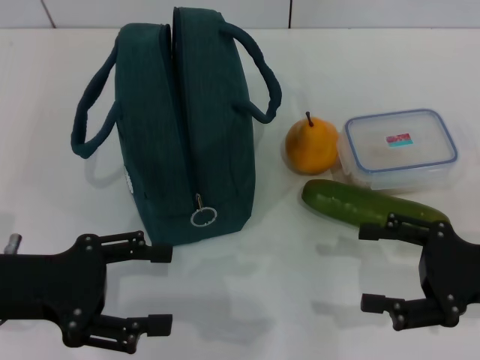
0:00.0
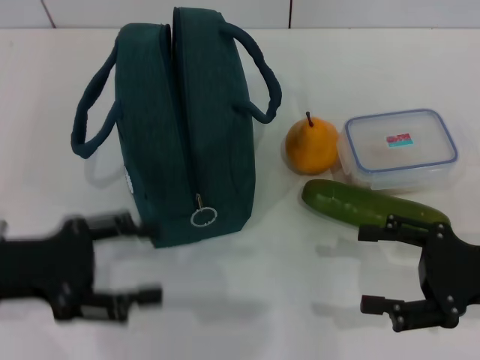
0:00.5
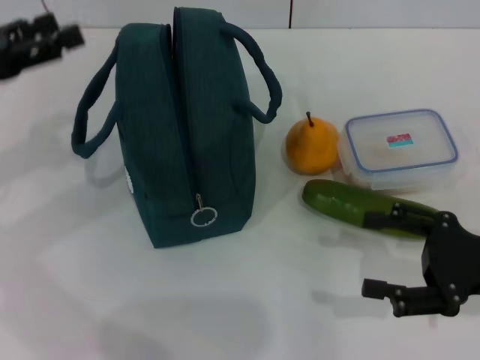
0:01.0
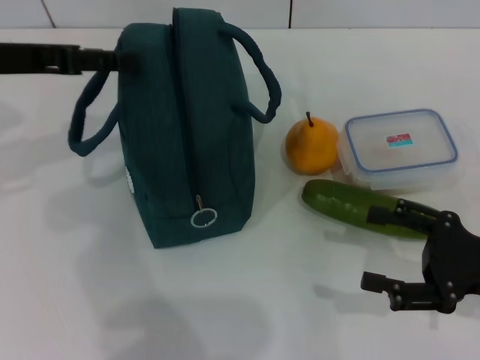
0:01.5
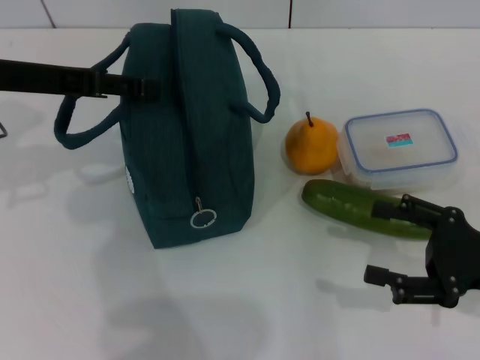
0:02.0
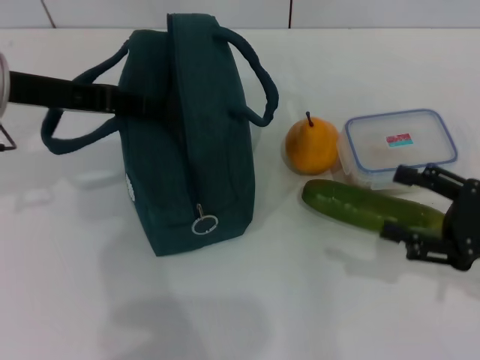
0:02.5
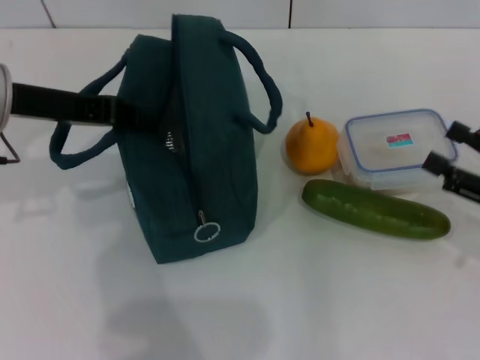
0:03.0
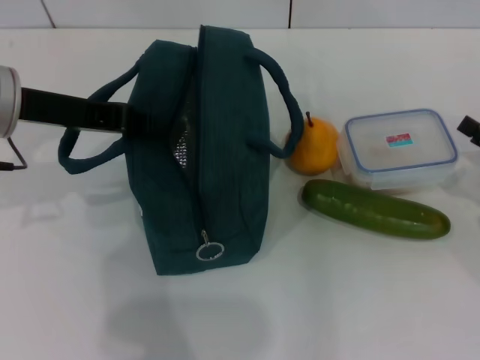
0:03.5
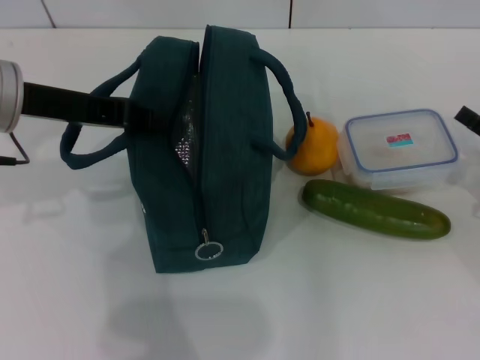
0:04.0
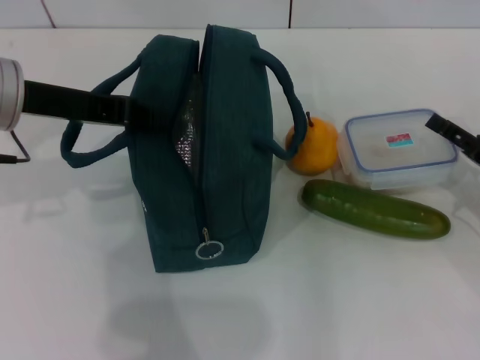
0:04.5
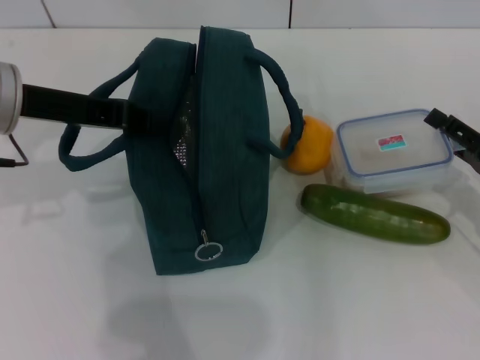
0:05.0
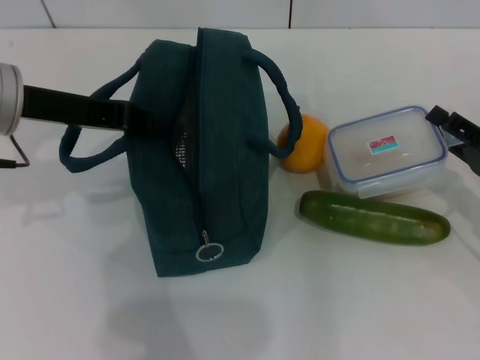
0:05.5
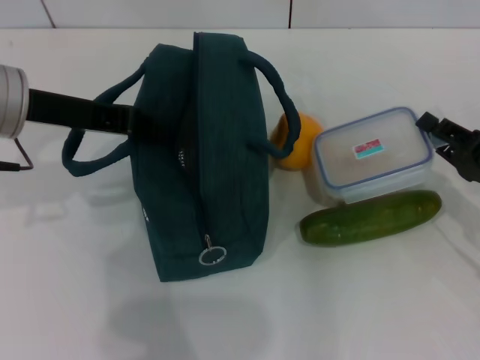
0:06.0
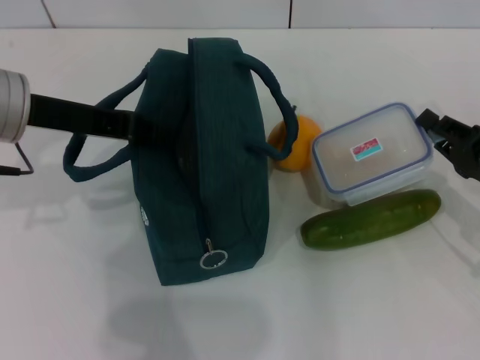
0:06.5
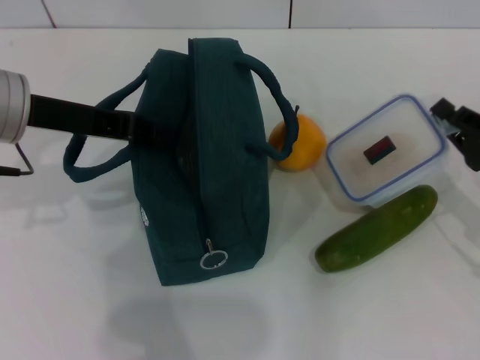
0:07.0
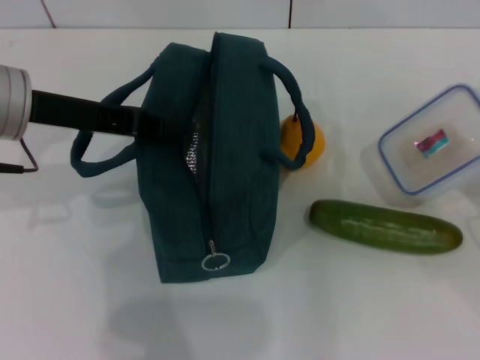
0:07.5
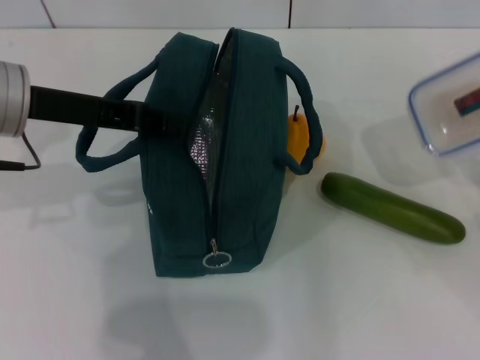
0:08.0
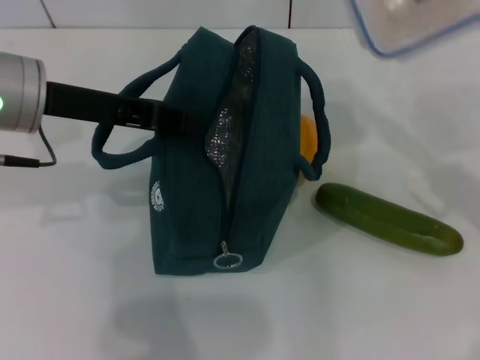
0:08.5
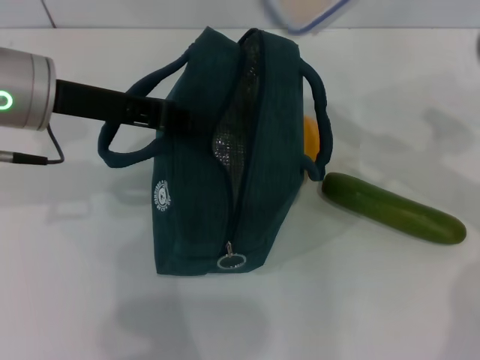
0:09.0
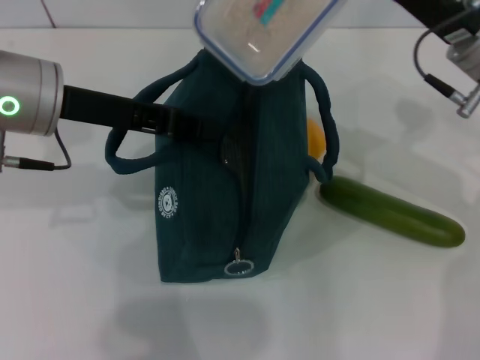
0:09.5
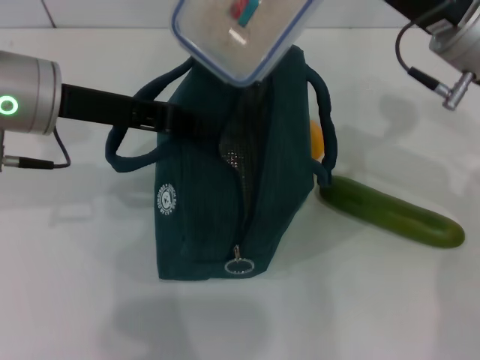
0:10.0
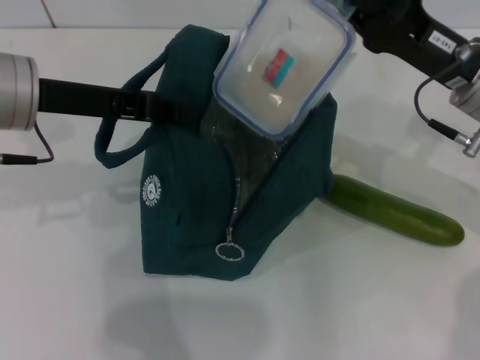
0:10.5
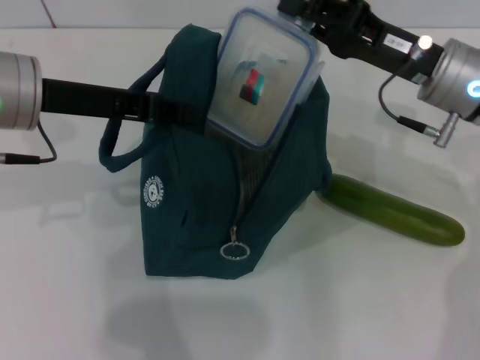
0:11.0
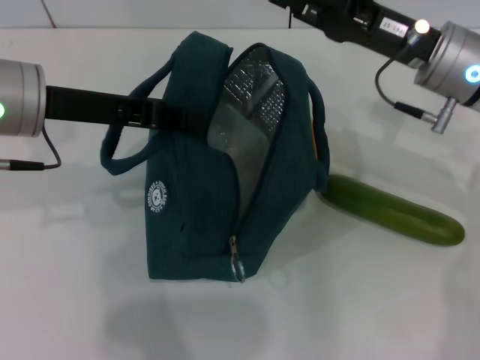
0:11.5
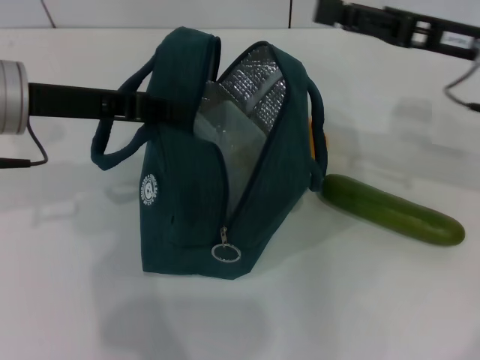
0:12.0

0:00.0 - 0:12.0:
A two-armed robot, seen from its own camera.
Step, 0:00.0 - 0:02.0: Hold the lunch bag with your left hand.
Step, 0:03.0 - 0:06.0: Pick up the lunch box with your right hand.
Step, 0:07.0 - 0:11.0: Place the lunch box into the lunch bag with your right hand.
0:00.0 - 0:02.0: The left gripper is displaced forward and upward by some 15 cm.
0:02.0 - 0:04.0: The right gripper moves to the right and forward, roughly 10 cm, while the left gripper closes.
0:04.0 - 0:06.0: The right gripper closes up.
0:06.0 - 0:08.0: The right gripper ends up about 5 cm from where it was, and closes.
0:08.0 - 0:10.0: The right gripper heads to the left, forward and upward, covering approximately 25 cm.
0:10.0 - 0:12.0: The right gripper shifts about 5 cm to the right, and opens its fingers.

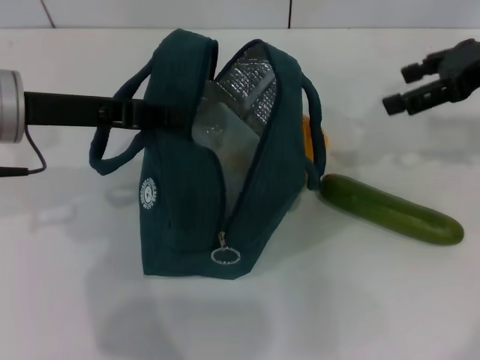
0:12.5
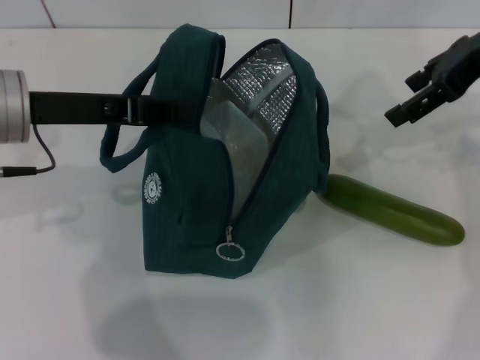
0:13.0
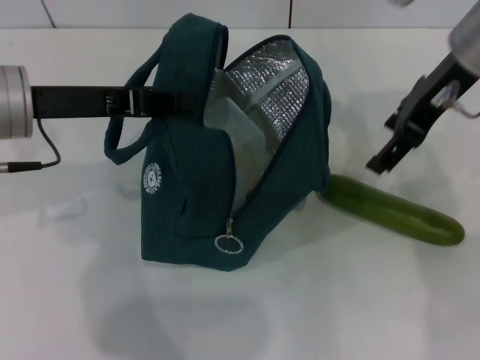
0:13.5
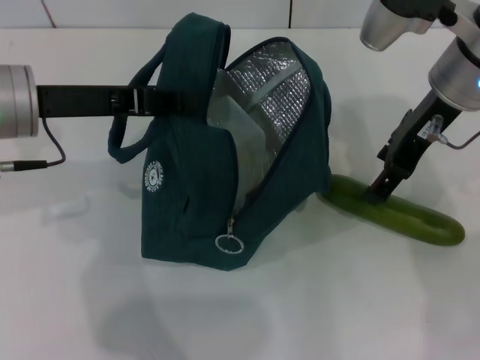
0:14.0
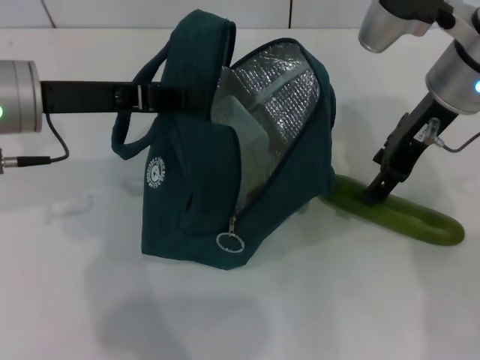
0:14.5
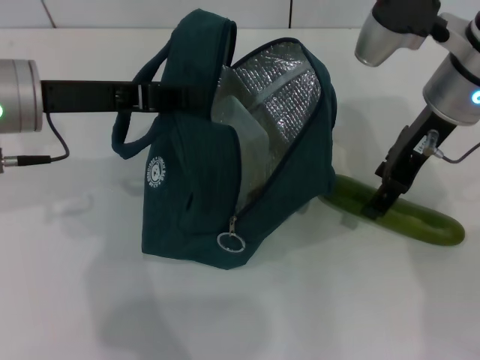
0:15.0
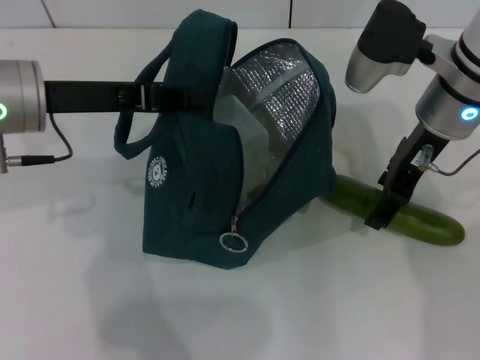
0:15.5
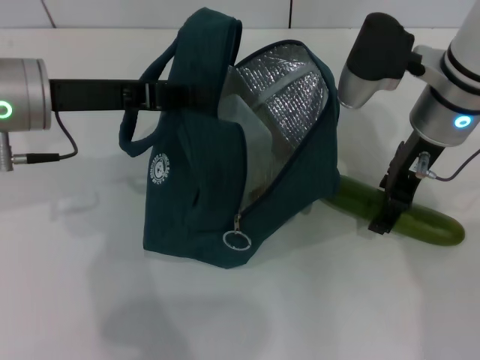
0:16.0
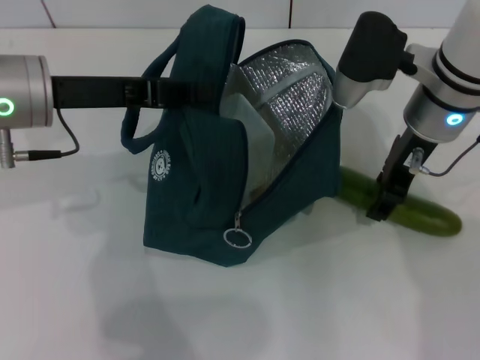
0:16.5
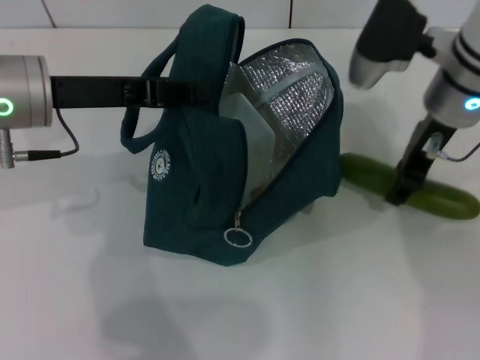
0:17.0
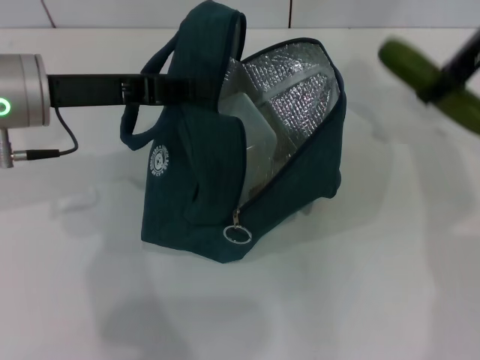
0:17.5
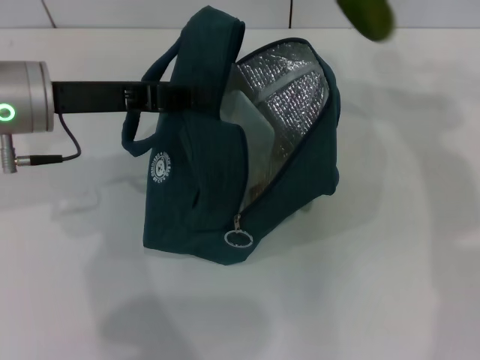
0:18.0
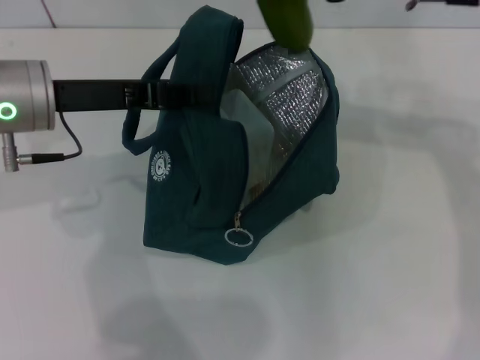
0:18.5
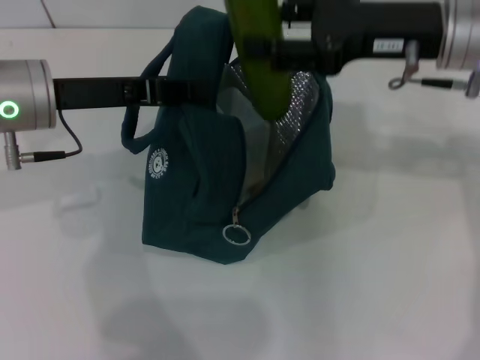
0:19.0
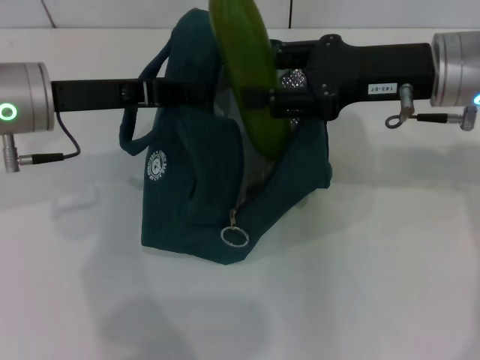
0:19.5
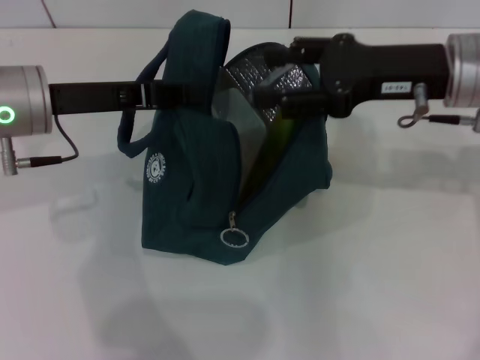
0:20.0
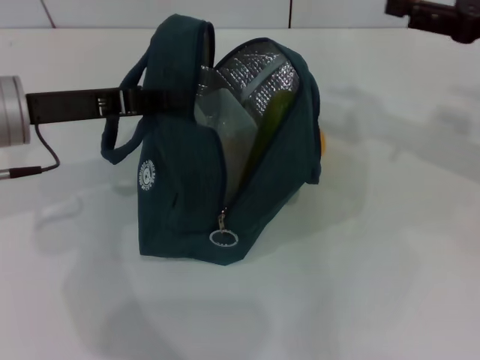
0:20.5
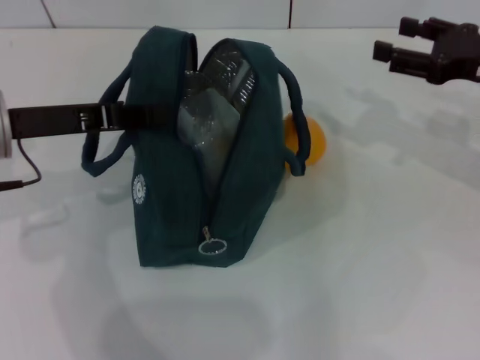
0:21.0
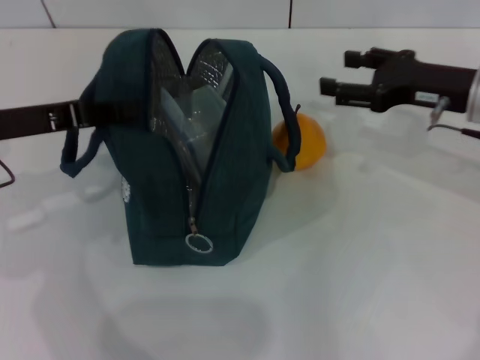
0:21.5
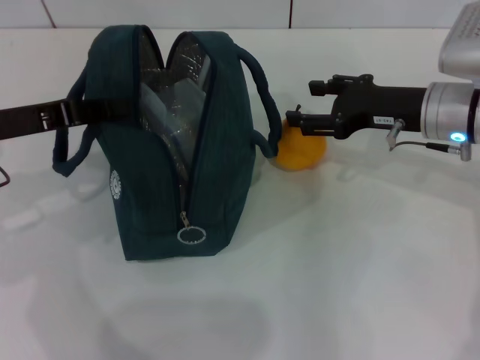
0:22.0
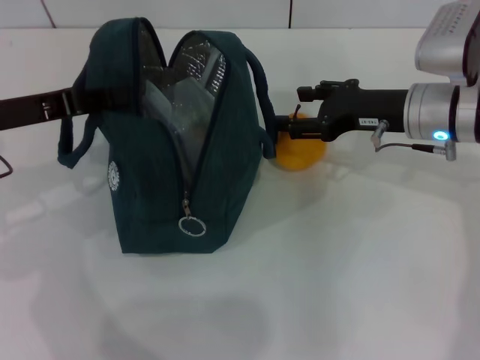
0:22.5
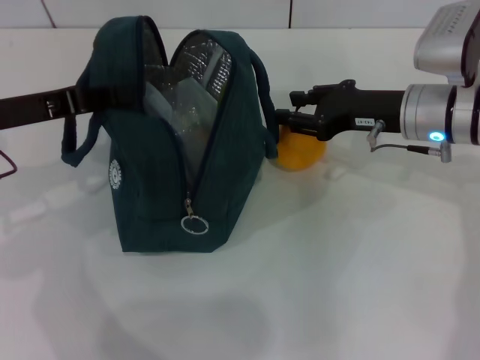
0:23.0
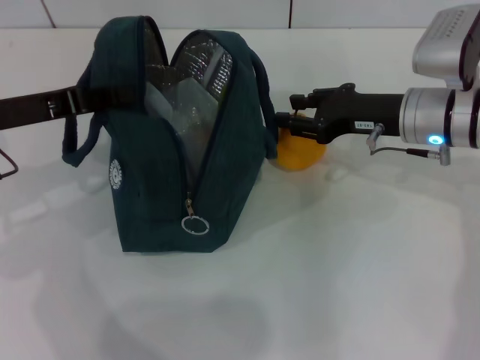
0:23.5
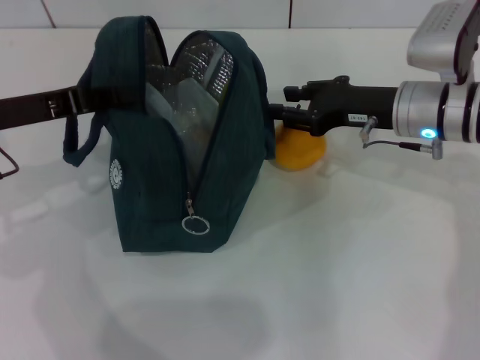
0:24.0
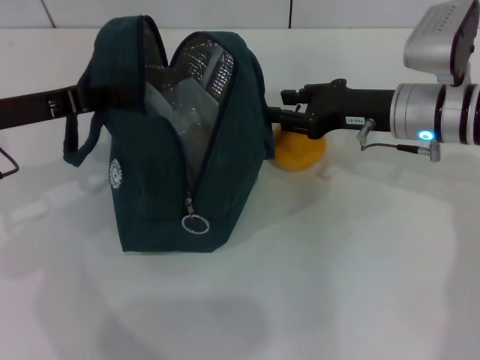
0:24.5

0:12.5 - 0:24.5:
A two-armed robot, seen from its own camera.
Step, 0:12.5 - 0:16.0: Pick up the cucumber with your right hand.
Step, 0:17.0 - 0:19.5: Put the cucumber into the lunch bag with your right hand.
0:12.5 - 0:14.5: The right gripper heads to the left, covering roughly 10 cm.
0:16.5 - 0:18.5: The right gripper is displaced upward by about 10 cm.
0:18.5 - 0:20.5: The right gripper is displaced to the right and downward by some 15 cm.
0:20.5 - 0:22.5: The right gripper moves to the left and downward, some 15 cm.
0:22.5 - 0:24.5: The right gripper closes its fingers.

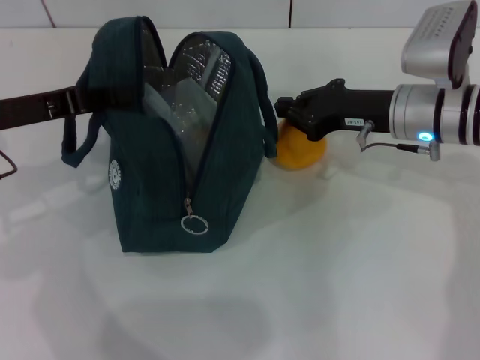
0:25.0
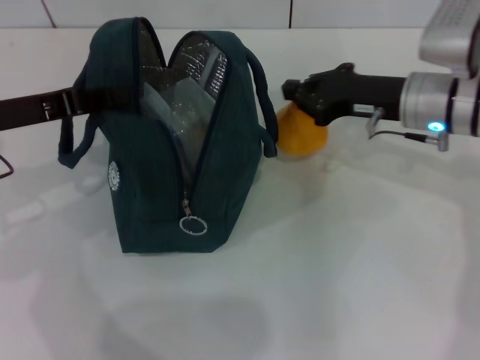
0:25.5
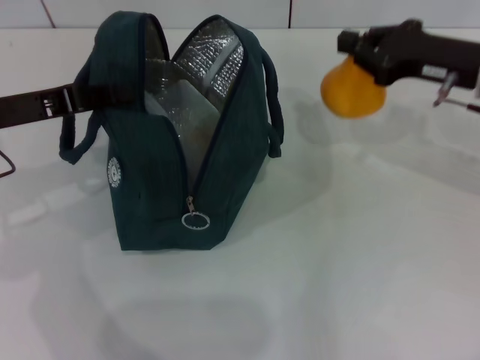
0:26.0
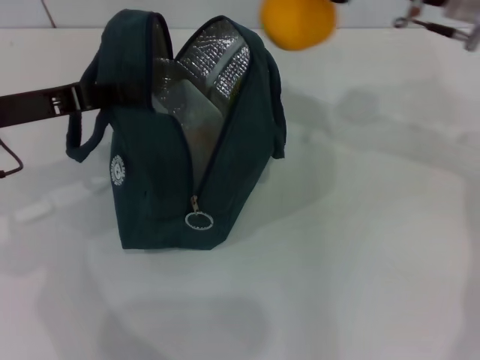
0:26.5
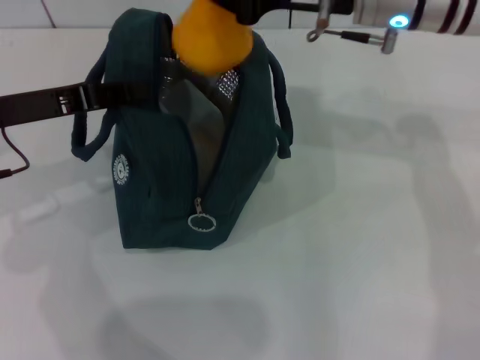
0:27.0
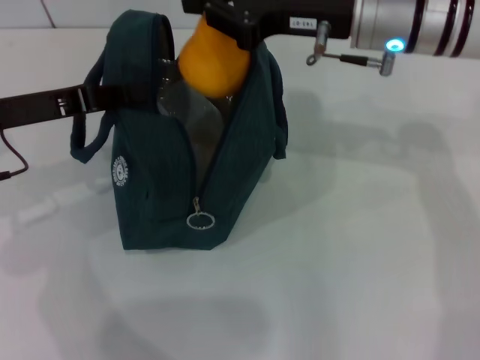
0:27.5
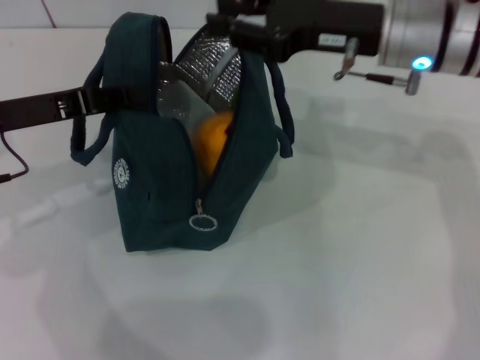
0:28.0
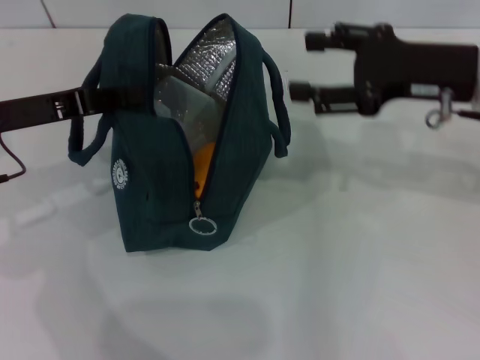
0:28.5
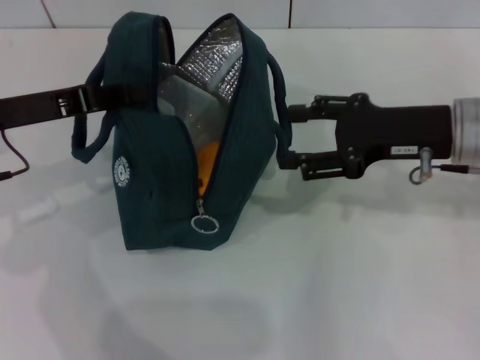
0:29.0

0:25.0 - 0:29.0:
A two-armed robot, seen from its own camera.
0:25.0 - 0:27.0: The right gripper travels upward and to the left by about 15 cm.
0:27.0 - 0:29.0: The right gripper moves to the right, downward and backward, some 15 cm, and opens up.
